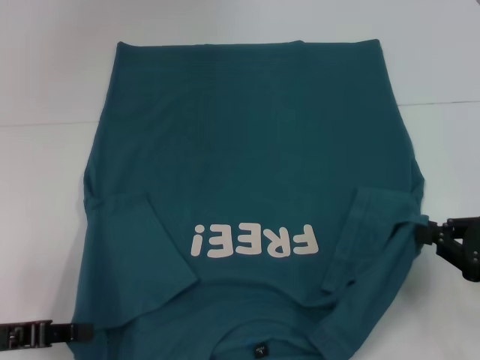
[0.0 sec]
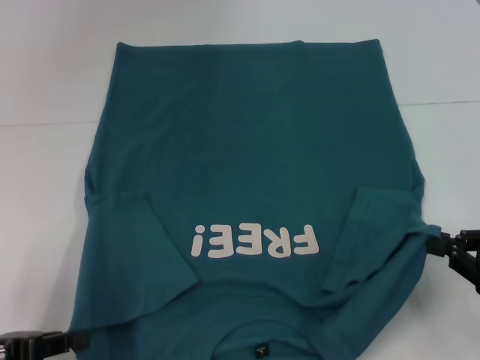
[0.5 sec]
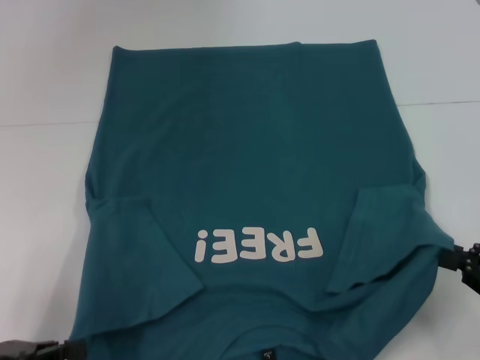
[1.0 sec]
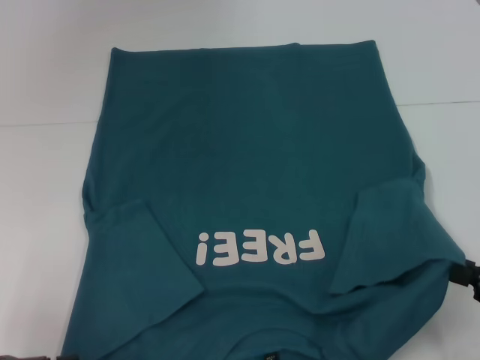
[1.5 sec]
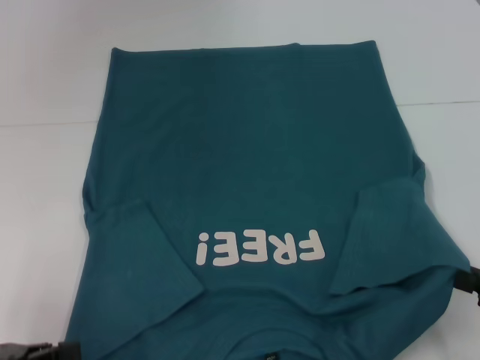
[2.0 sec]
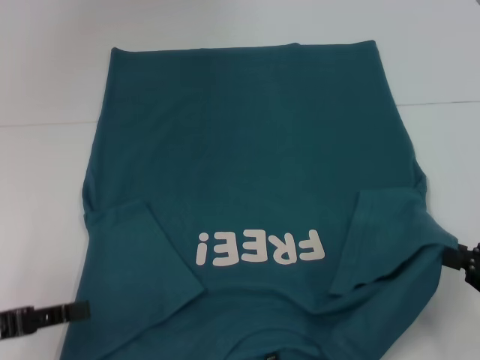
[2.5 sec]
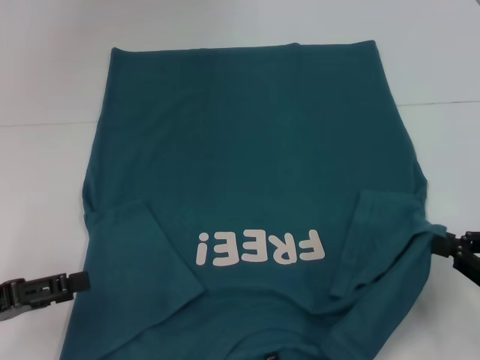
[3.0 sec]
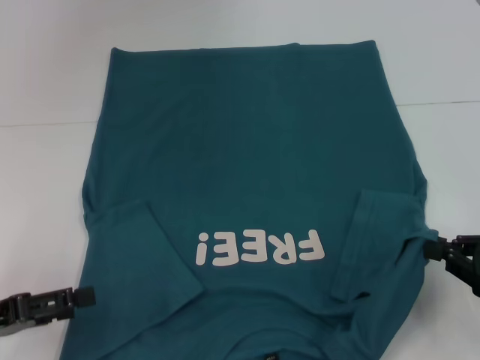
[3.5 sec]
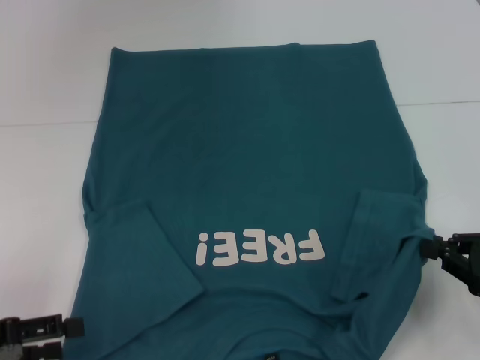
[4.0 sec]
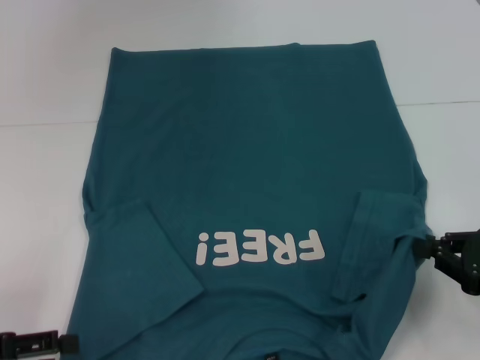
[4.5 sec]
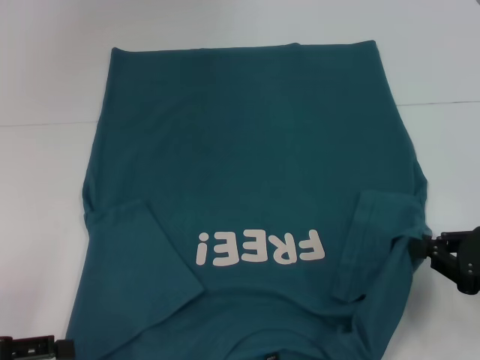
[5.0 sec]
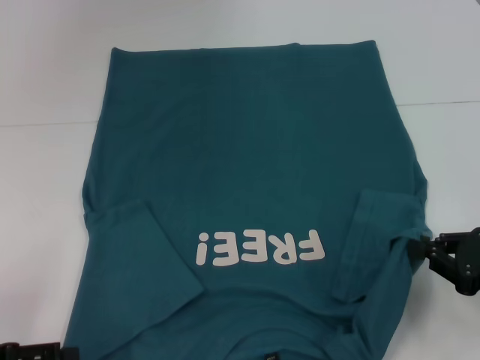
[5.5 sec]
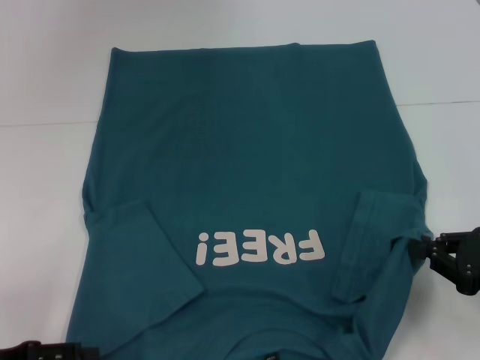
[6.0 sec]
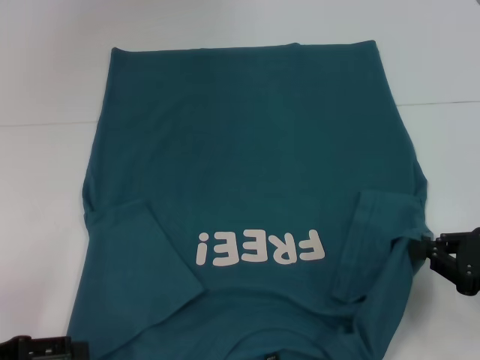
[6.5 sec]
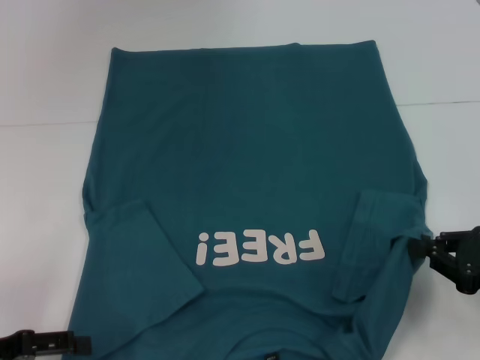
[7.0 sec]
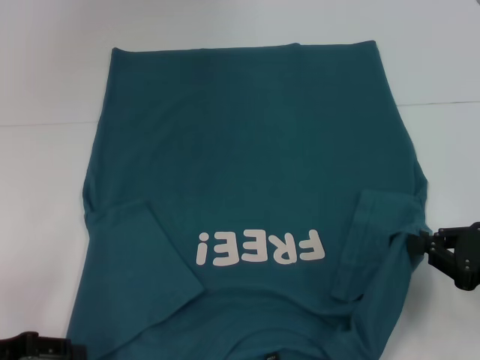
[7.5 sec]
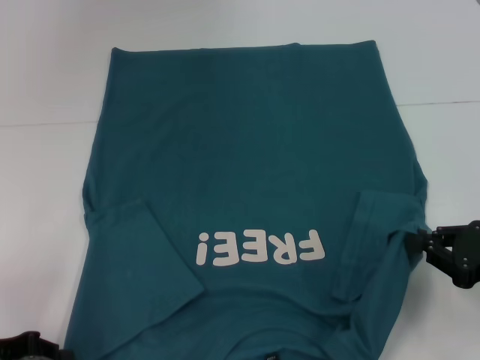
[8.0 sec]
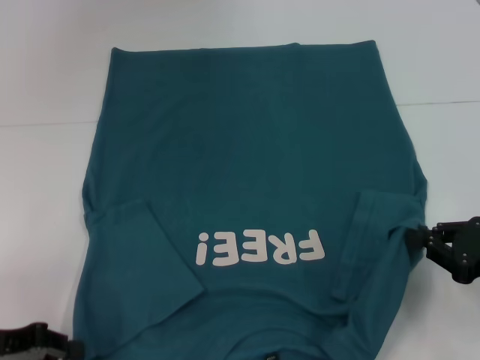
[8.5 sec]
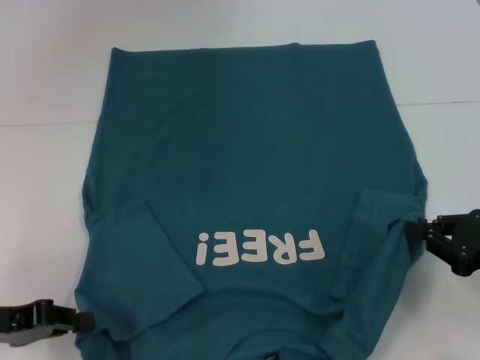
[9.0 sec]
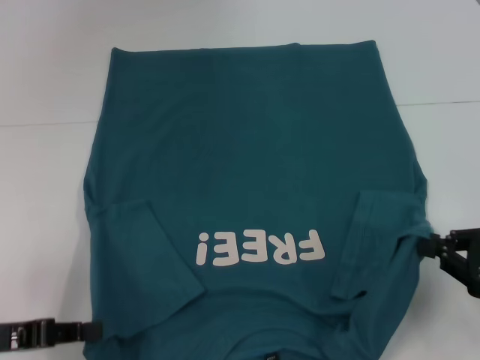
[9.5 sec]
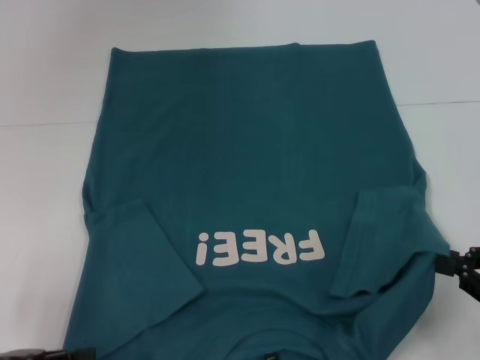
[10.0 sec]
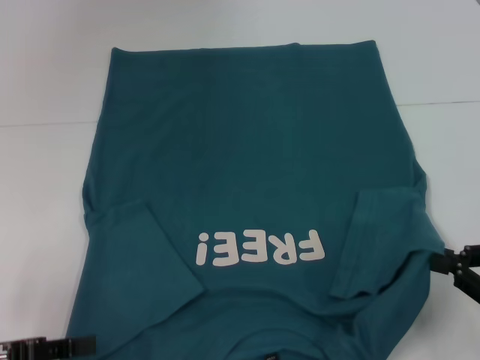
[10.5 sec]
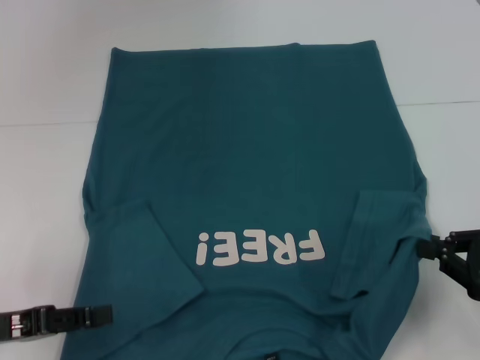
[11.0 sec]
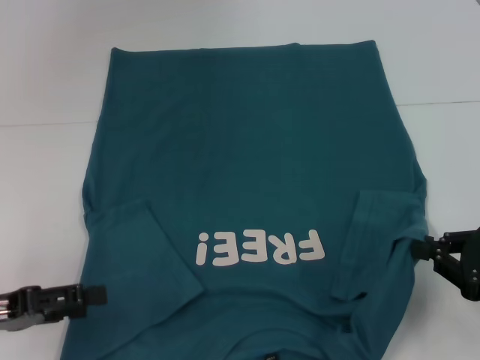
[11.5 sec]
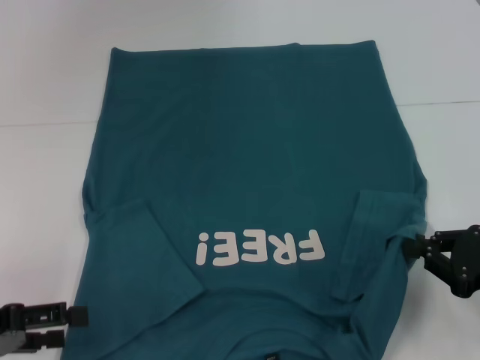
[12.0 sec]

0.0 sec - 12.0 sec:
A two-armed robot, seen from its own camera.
0.0 sec - 2.0 sec: The right gripper is displaced backward by approximately 5 cm. The left gripper changes place by roughly 5 cm.
2.0 sec - 4.0 sec: The left gripper opens up; the right gripper shifts roughly 5 cm forward.
4.0 sec - 6.0 sec: The grippers make only small movements.
10.0 sec - 12.0 sec: The left gripper opens.

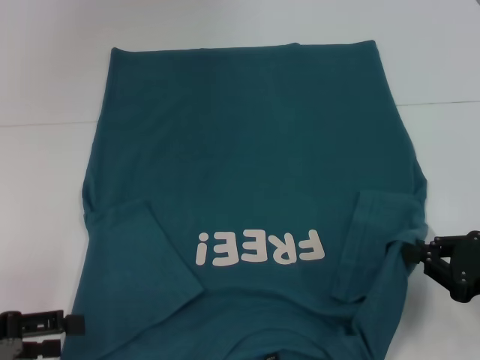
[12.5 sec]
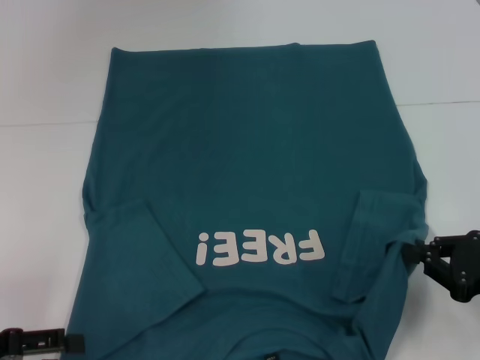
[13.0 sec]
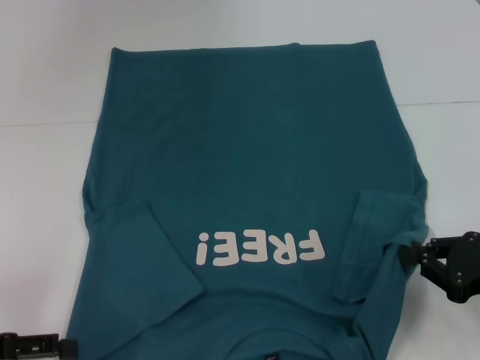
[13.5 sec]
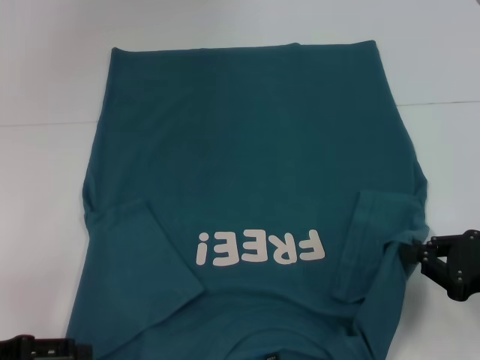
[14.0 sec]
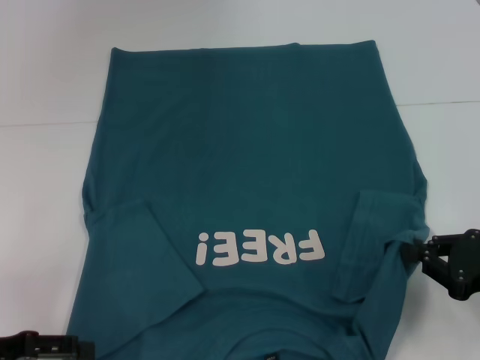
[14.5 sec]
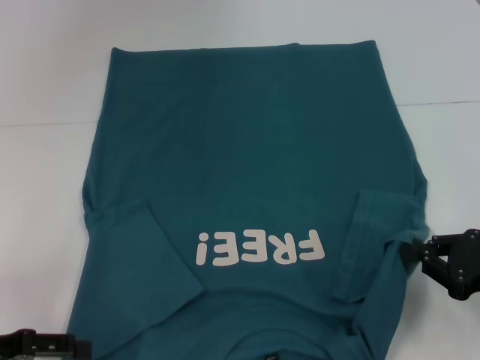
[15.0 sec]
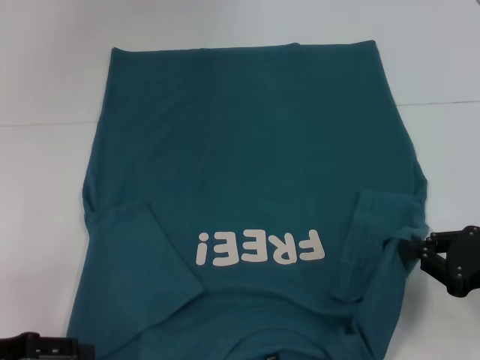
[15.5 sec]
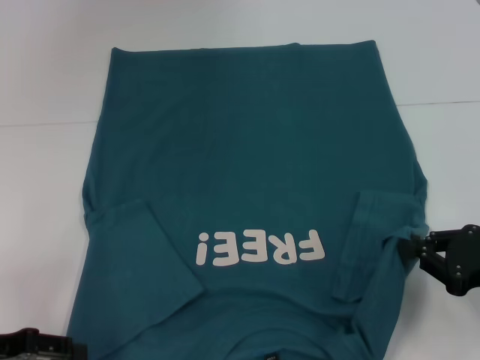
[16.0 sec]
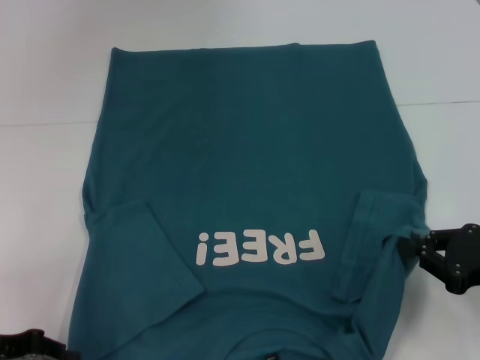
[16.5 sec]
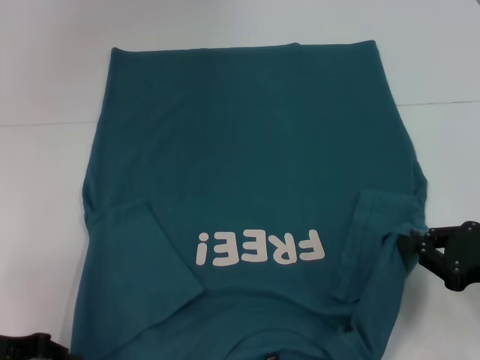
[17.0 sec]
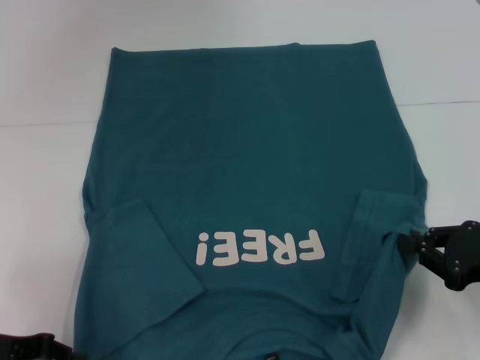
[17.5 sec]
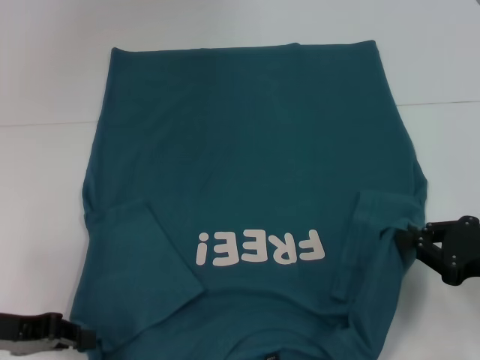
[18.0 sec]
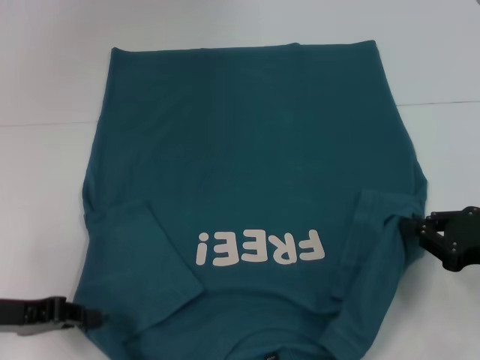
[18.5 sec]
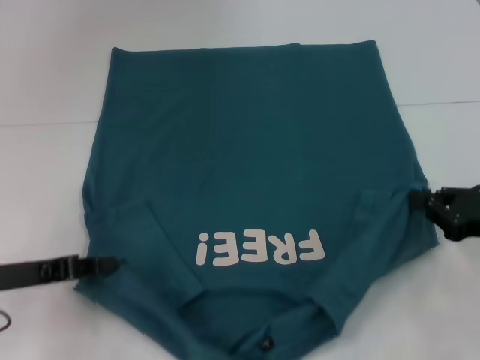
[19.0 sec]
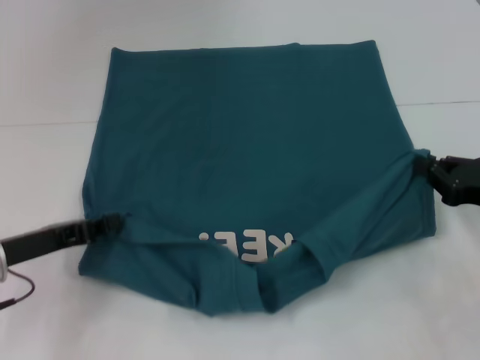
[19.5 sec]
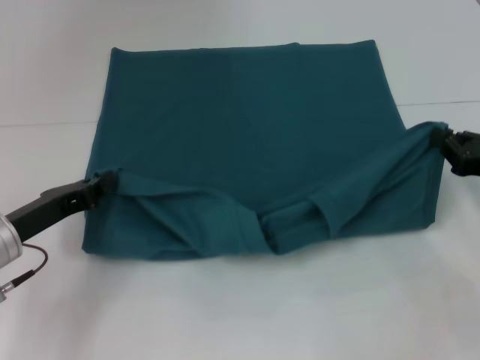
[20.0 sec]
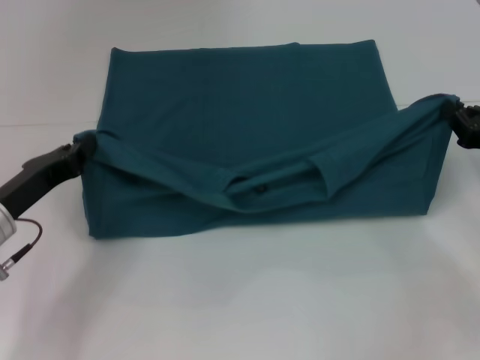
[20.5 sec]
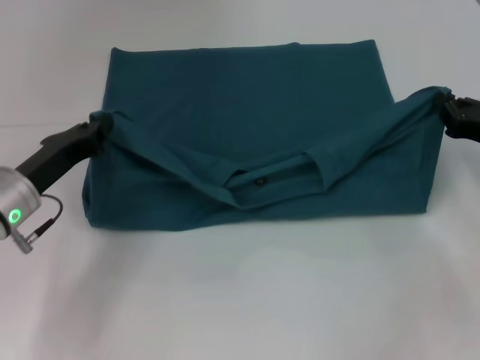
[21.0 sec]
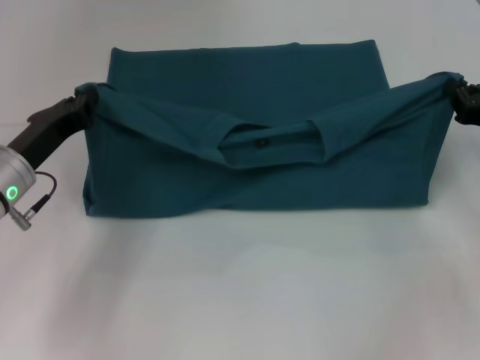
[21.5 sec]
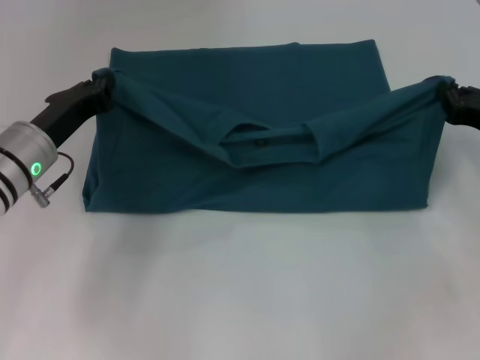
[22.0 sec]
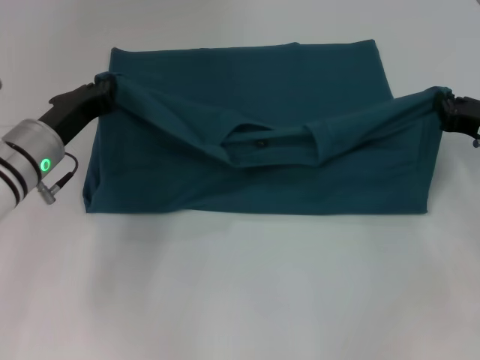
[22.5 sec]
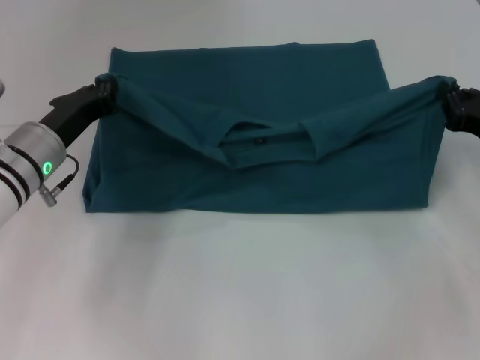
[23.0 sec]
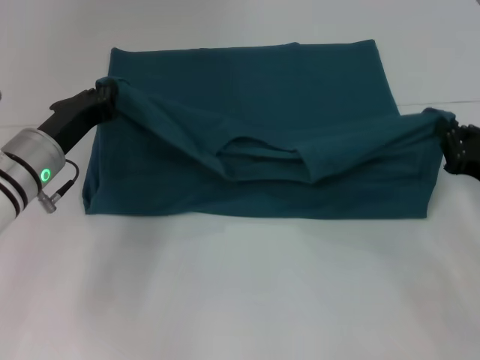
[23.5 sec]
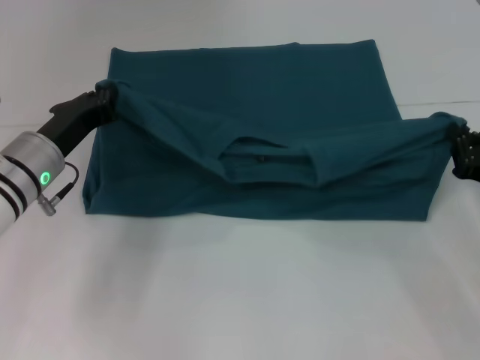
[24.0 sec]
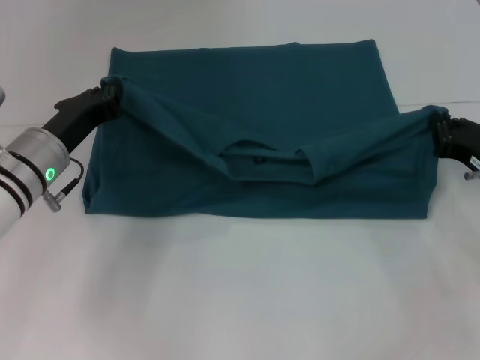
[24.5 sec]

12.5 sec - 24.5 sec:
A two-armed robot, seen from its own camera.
12.5 sec - 14.5 sec: The grippers make only small movements.
16.5 sec - 18.5 sec: The left gripper closes its fingers.
18.5 sec - 20.5 sec: The left gripper ends up roughly 5 cm from where it was; the right gripper moves forward, some 5 cm.
20.5 sec - 22.5 sec: The left gripper shifts approximately 5 cm forward.

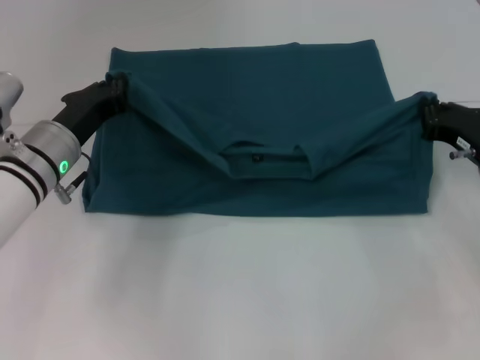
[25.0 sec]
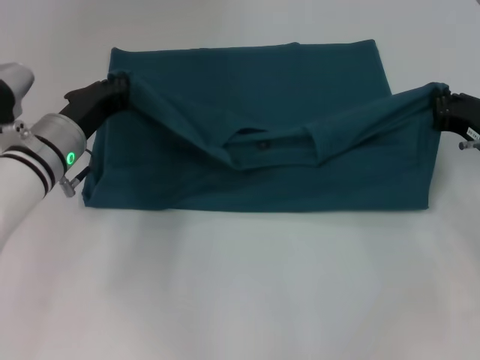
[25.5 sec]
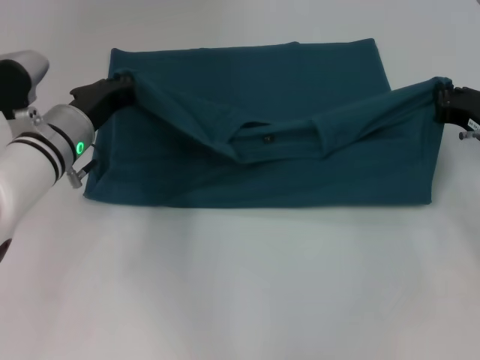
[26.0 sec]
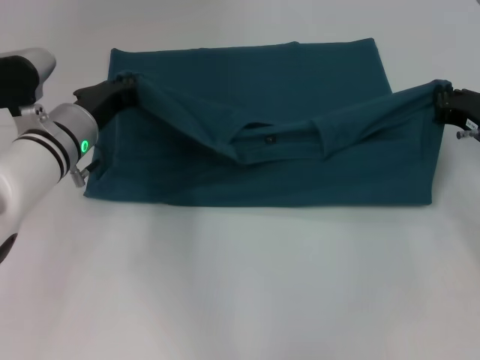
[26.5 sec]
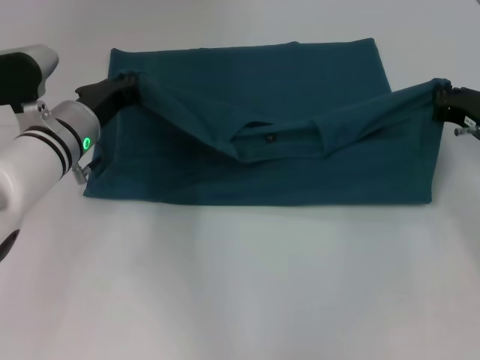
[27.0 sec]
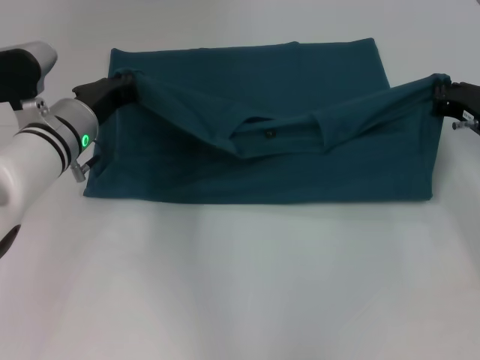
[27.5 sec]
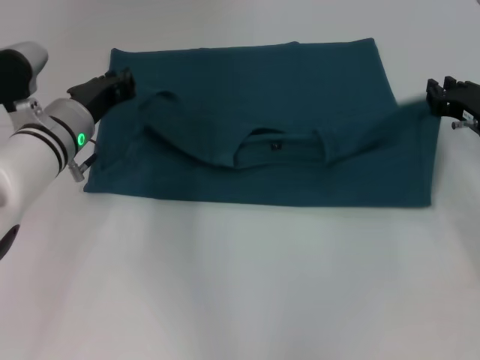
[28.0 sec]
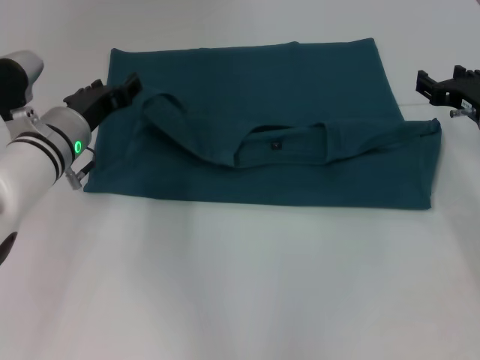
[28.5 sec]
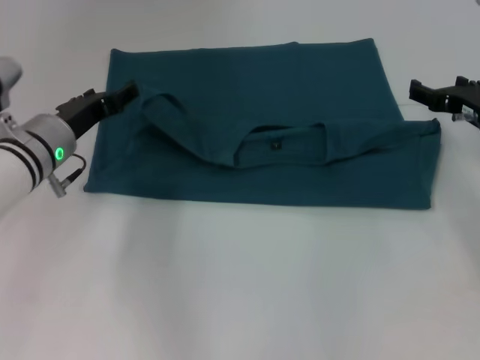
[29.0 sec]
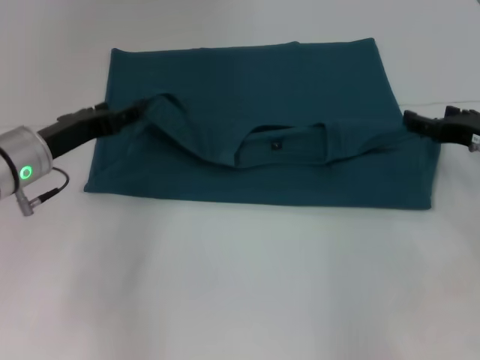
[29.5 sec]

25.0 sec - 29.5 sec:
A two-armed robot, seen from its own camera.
Step, 25.0 sec - 28.5 sec: Fold the clothes to the left.
Step, 25.0 sec - 28.5 sec: Fold the clothes to the right.
25.0 sec - 27.0 sec: The grippers stay close to where they were, moving slightly.
27.0 sec - 29.5 sec: The left gripper travels to the left by some 5 cm, and opens its fingers, while the right gripper opens its fingers.
